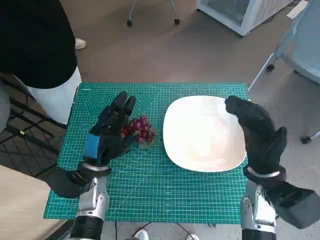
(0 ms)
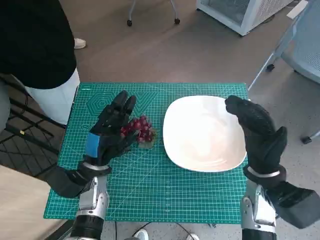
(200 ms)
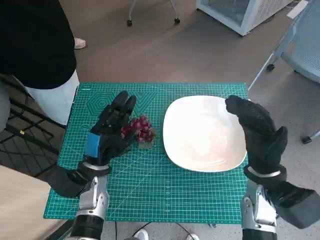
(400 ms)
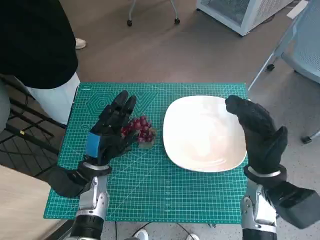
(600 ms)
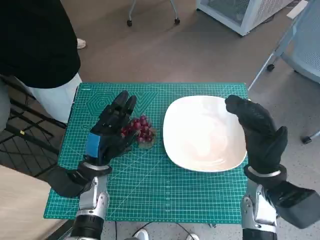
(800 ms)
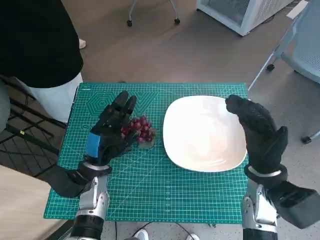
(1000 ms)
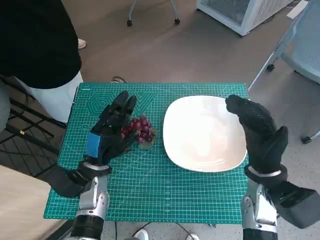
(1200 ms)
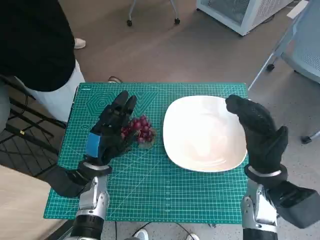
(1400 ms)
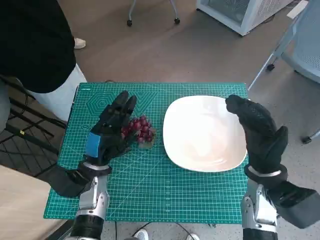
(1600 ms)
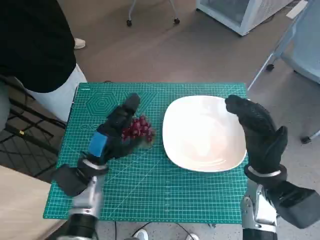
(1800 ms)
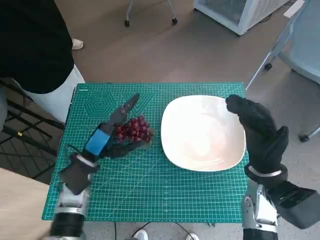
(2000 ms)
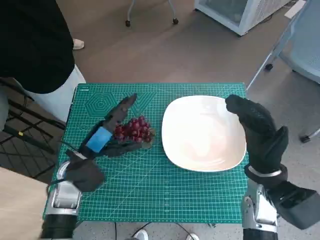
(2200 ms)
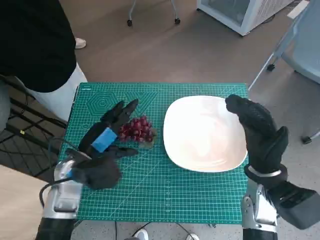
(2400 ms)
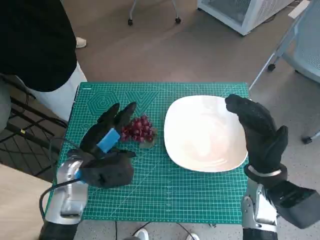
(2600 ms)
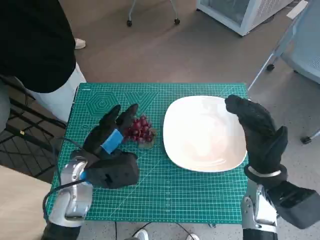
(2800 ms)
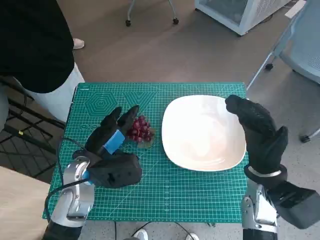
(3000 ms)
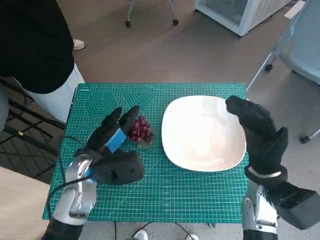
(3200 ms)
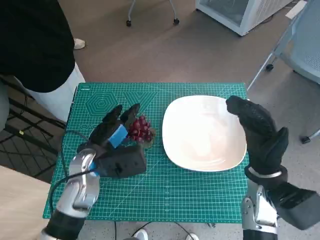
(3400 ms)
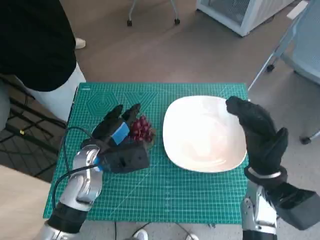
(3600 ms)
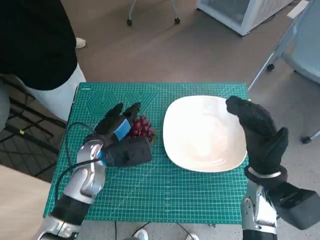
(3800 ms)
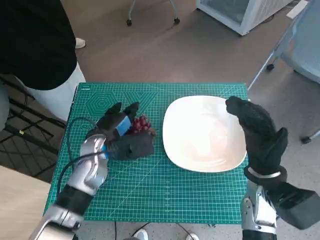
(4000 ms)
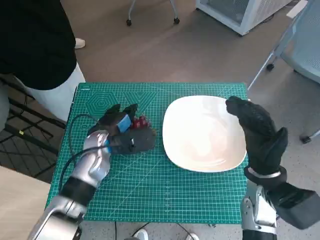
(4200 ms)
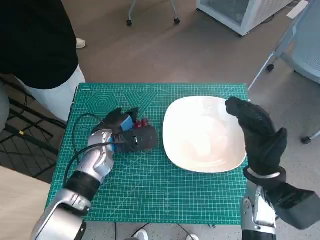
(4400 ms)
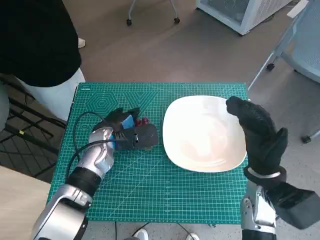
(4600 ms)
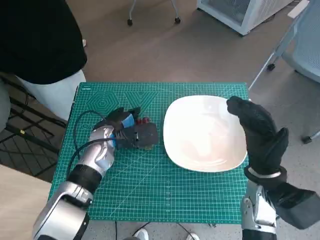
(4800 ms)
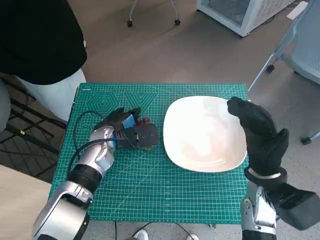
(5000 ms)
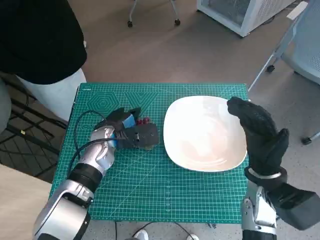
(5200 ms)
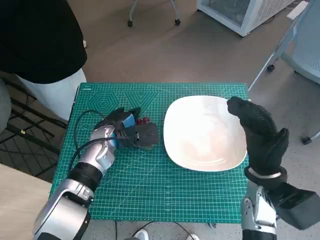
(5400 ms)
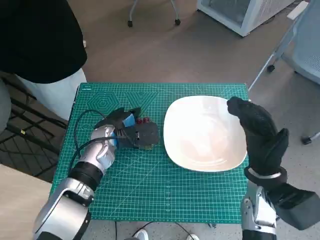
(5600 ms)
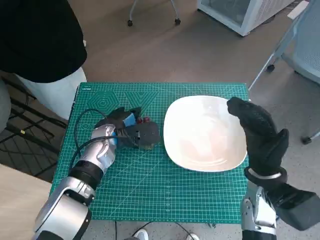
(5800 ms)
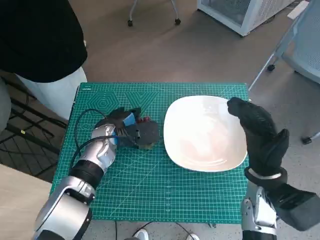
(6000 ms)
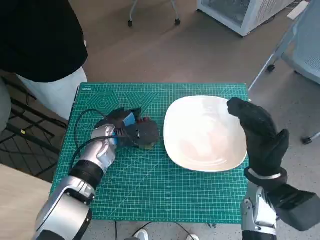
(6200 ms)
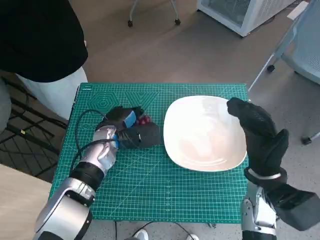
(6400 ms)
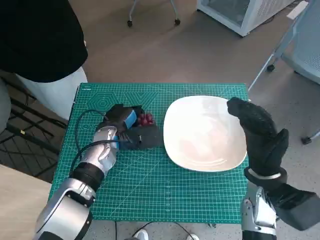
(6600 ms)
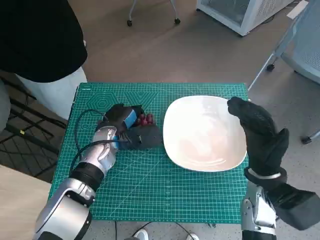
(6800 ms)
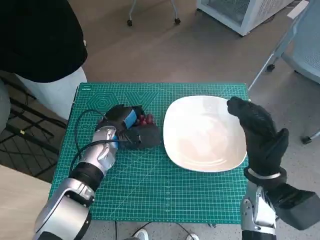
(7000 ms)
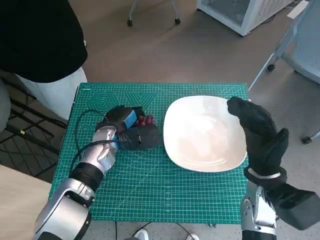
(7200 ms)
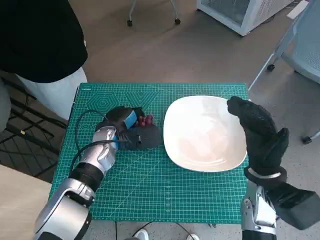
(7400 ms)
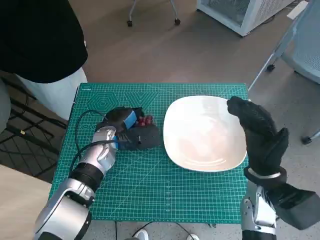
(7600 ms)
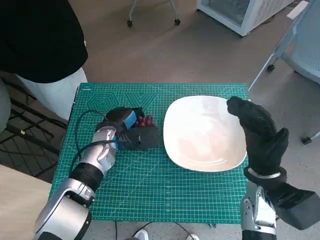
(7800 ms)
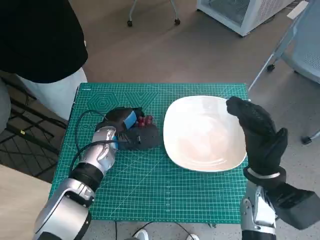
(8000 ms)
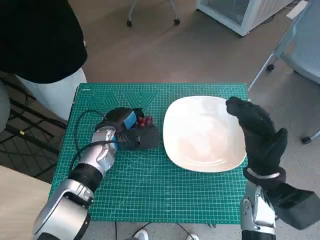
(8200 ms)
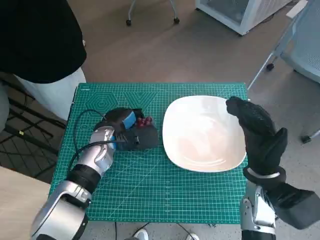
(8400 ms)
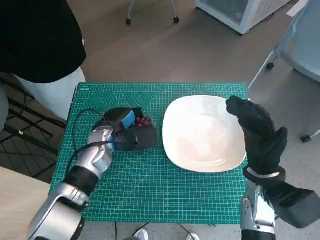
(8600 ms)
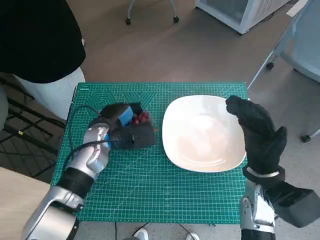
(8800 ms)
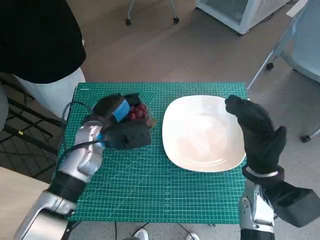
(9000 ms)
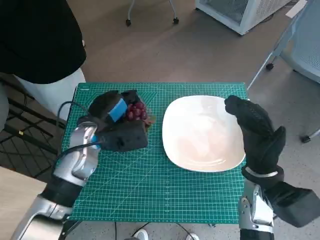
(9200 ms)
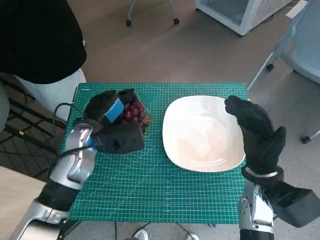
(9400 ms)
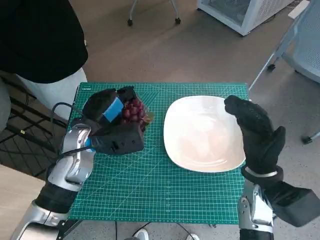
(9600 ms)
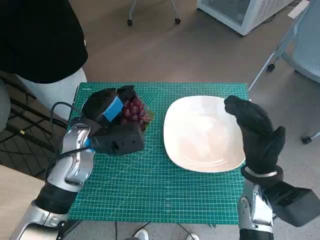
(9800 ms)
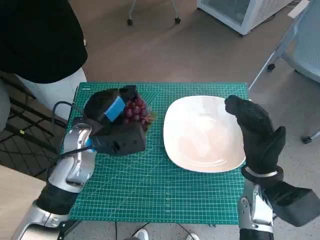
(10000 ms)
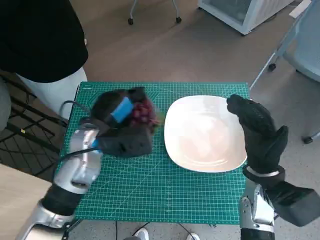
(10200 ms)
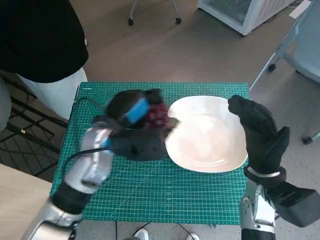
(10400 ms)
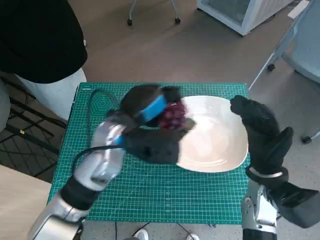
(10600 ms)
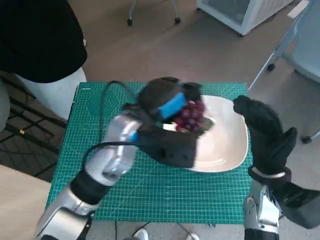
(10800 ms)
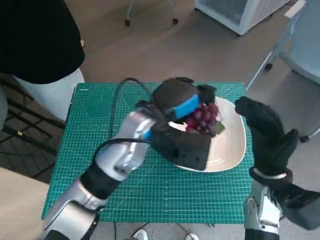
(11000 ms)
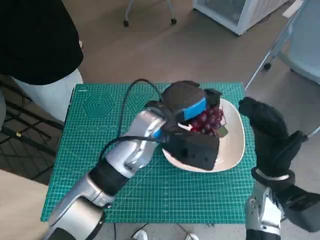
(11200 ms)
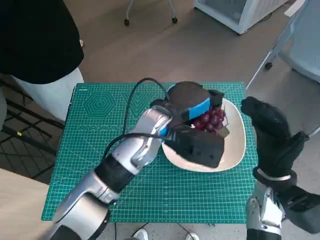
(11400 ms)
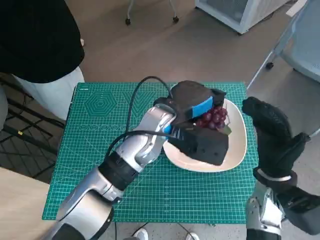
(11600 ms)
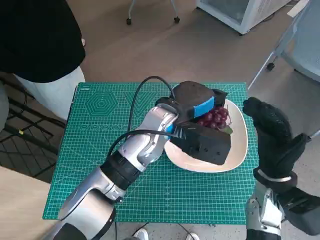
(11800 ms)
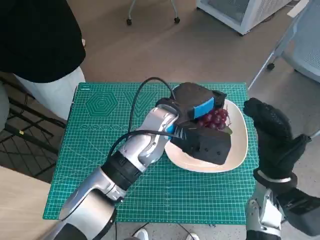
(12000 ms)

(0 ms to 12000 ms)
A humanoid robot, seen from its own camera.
Task of the whole recording: Pick up the grapes and put them on the plate.
Step, 0 ms - 4600 ms: Grasp the grapes with left hand.
1600 ms - 3000 ms: The left hand goes roughly 5 cm upward.
3000 ms - 4400 ms: The left hand moves forward, about 10 cm.
4400 ms - 9000 ms: The hands move only a little.
9000 ms - 10400 ms: The left hand shifts by about 5 cm.
10400 ms - 12000 ms: The left hand travels to the right by approximately 10 cm.

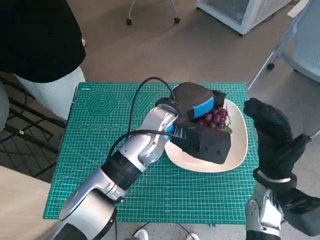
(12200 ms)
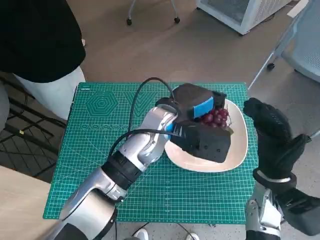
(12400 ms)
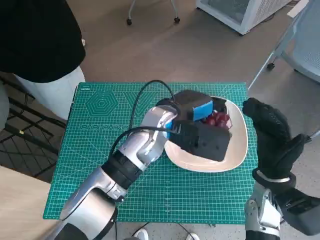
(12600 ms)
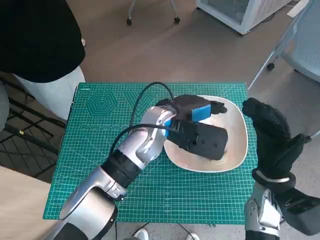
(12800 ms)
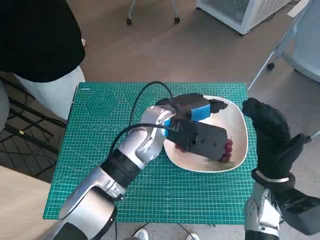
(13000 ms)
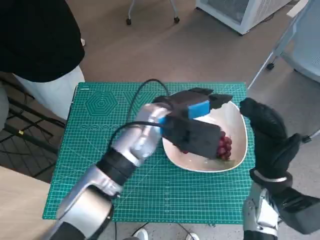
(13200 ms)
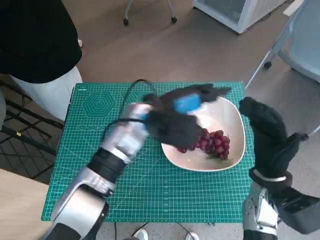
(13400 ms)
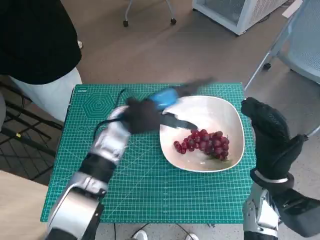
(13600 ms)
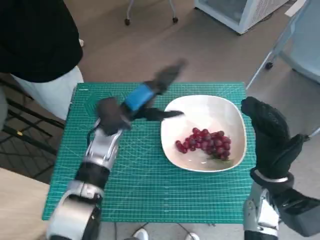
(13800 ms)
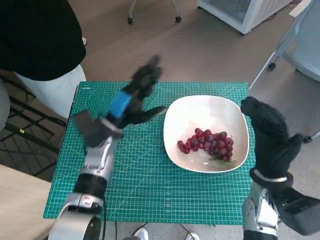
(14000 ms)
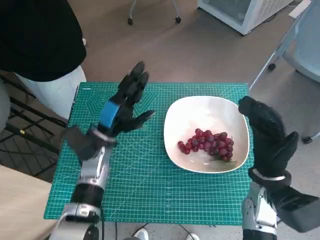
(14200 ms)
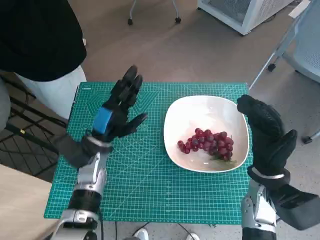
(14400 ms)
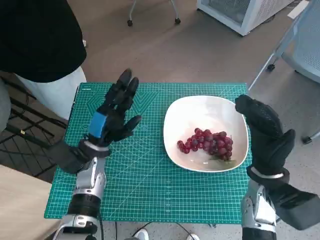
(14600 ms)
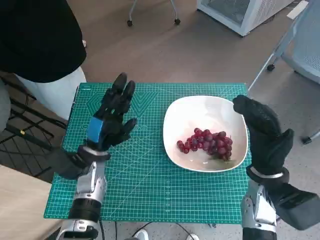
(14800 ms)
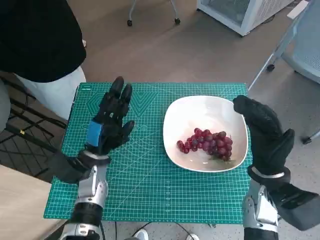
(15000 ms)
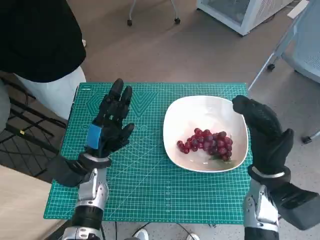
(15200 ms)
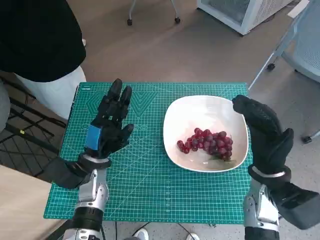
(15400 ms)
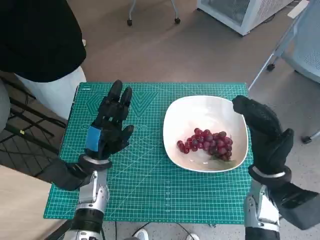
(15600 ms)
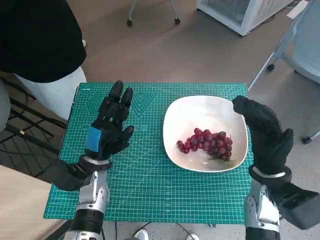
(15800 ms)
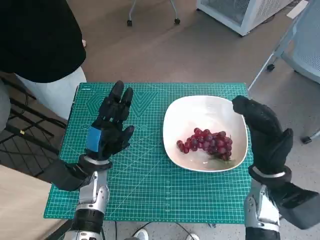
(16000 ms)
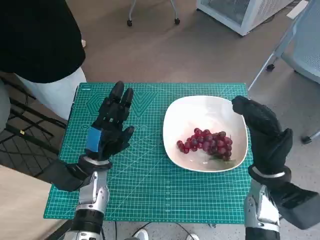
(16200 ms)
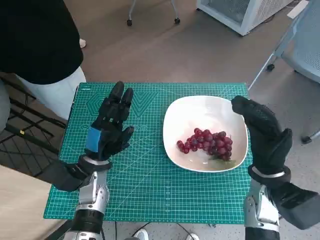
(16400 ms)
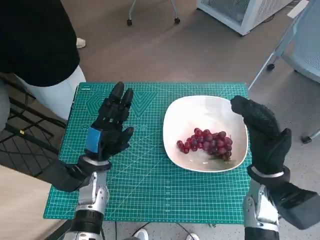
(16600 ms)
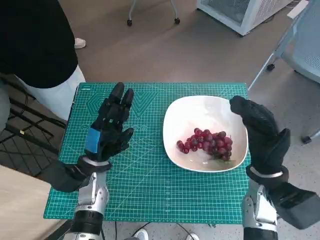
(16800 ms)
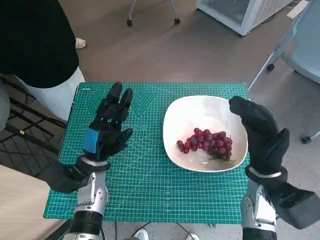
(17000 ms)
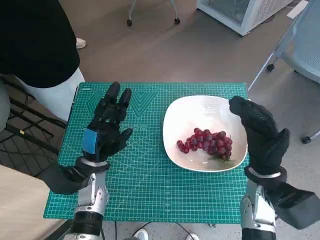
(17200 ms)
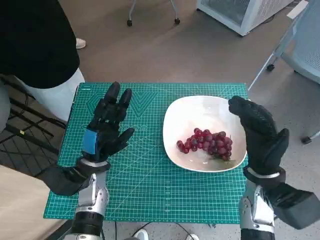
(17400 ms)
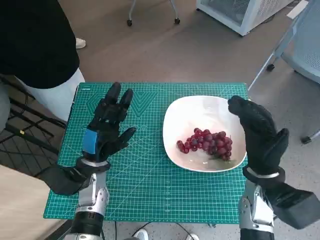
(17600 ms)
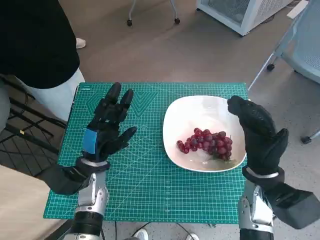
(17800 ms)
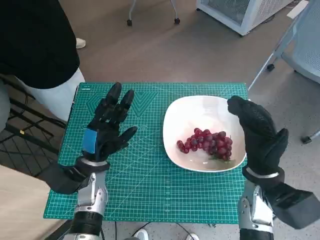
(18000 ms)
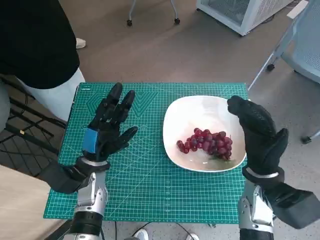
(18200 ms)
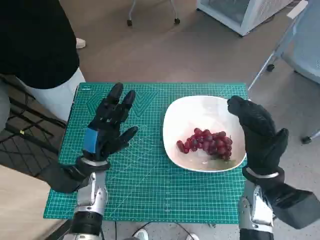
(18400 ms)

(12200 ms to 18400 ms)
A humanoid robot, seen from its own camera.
Task of the whole recording: Pick up the grapes and put them on the plate.
12200 ms - 13800 ms: The left hand moves to the left, about 10 cm.
13800 ms - 15400 ms: The left hand moves downward, backward and to the left, about 15 cm.
15400 ms - 18400 ms: The two hands keep their place.

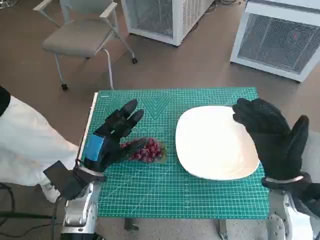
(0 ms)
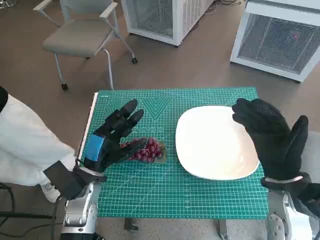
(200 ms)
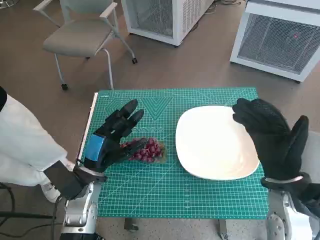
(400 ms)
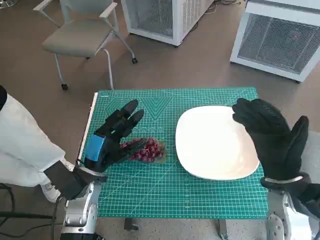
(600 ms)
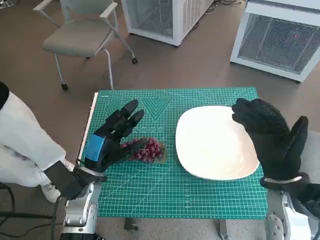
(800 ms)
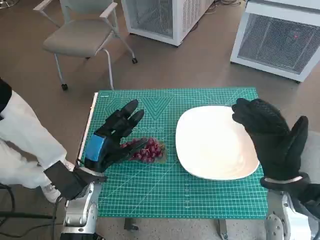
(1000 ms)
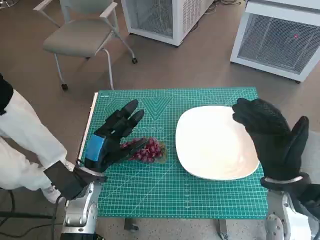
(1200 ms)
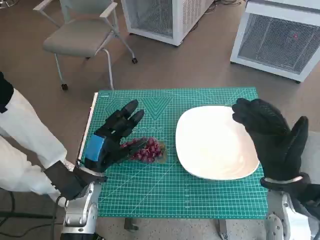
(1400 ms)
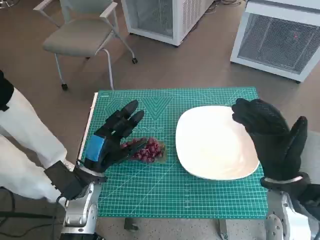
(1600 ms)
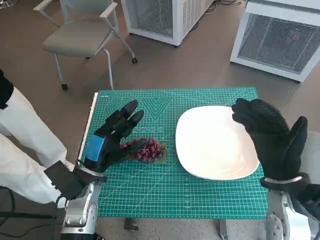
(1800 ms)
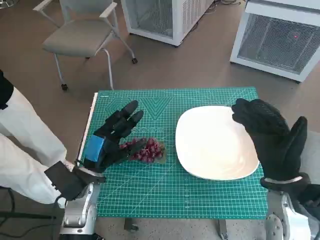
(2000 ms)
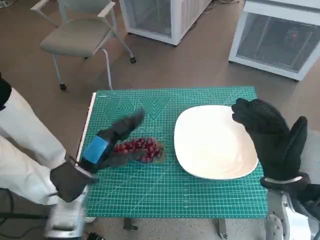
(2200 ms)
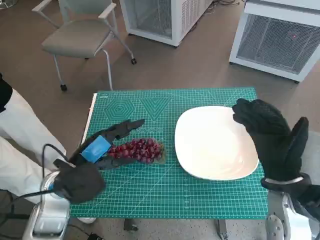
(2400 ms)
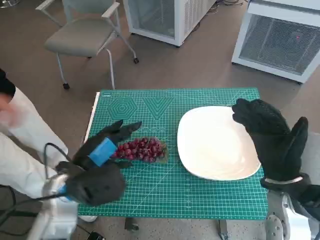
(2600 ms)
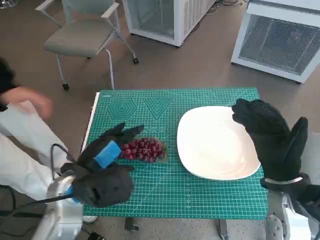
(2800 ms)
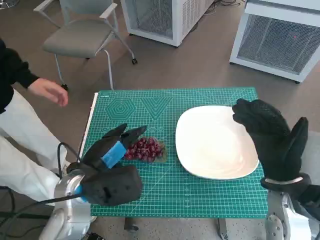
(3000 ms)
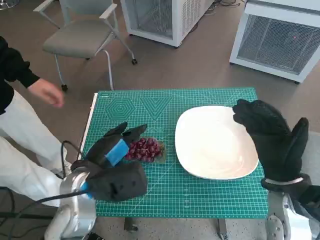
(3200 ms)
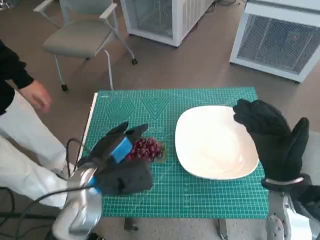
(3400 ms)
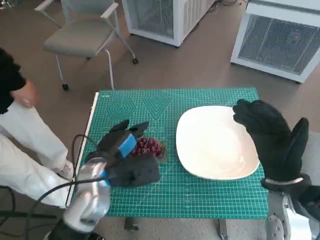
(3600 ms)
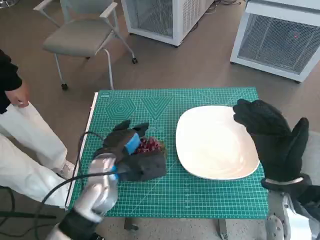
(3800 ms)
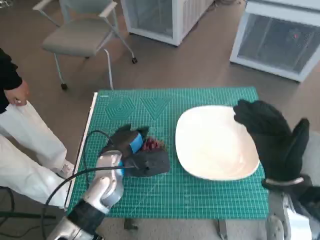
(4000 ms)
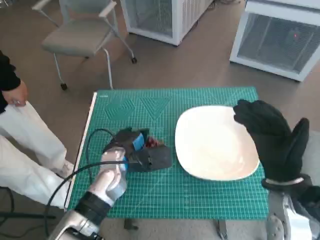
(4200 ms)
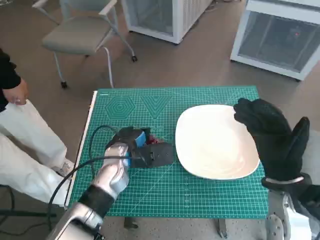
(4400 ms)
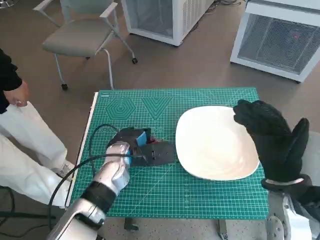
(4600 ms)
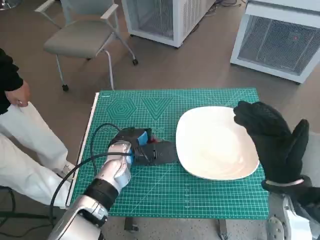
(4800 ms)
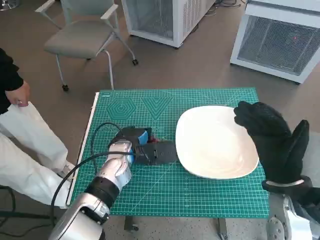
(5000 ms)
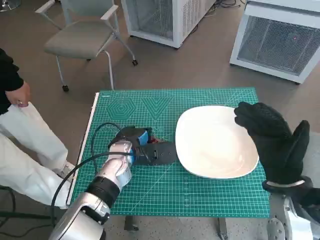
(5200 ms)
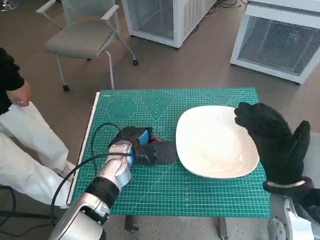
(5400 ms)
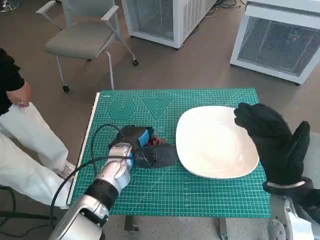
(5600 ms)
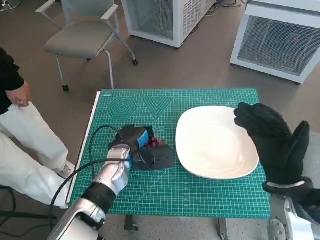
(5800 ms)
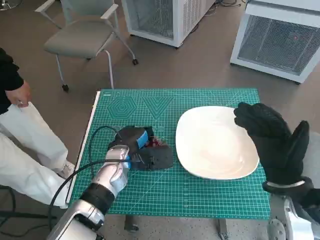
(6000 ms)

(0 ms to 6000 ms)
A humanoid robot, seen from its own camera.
Task of the whole recording: Pick up the grapes and put them on the plate.
1600 ms - 3000 ms: The left hand shifts about 5 cm upward.
3000 ms - 4400 ms: The left hand goes about 10 cm forward and downward.
4400 ms - 6000 ms: There are only small adjustments of the hands.
